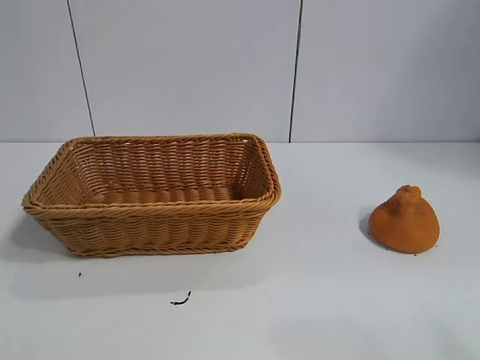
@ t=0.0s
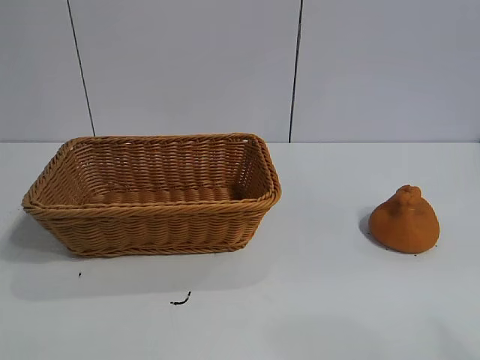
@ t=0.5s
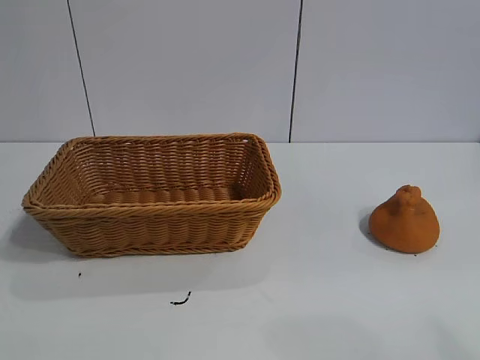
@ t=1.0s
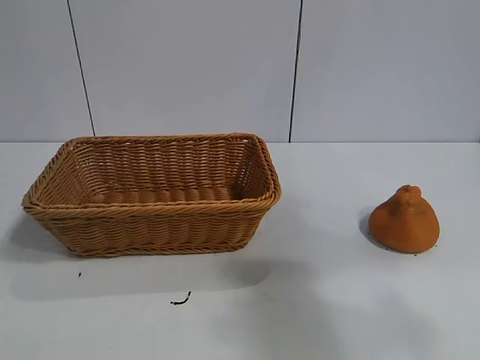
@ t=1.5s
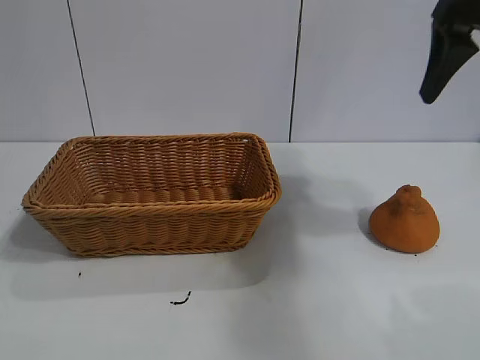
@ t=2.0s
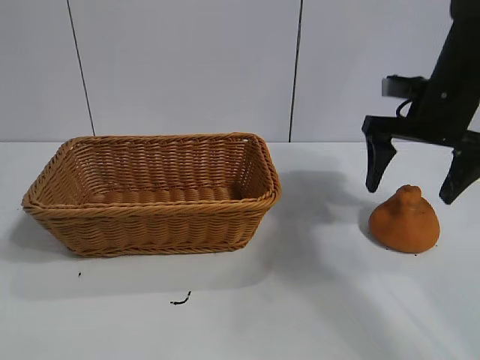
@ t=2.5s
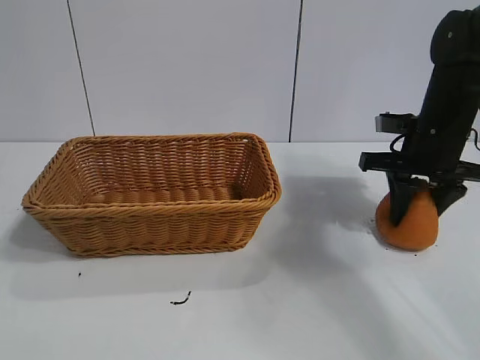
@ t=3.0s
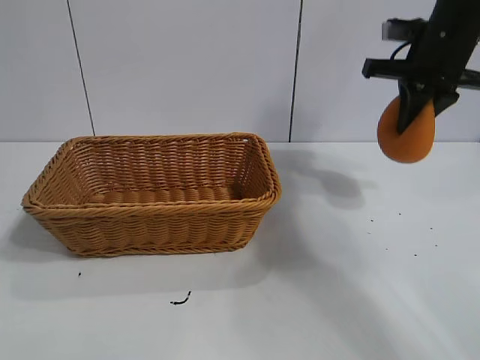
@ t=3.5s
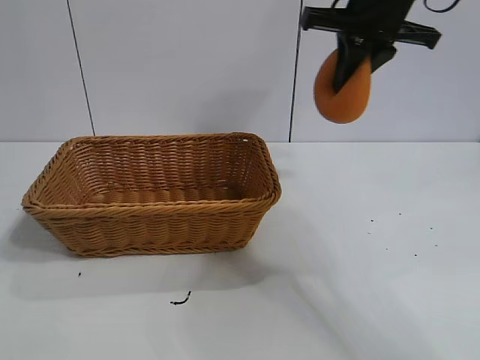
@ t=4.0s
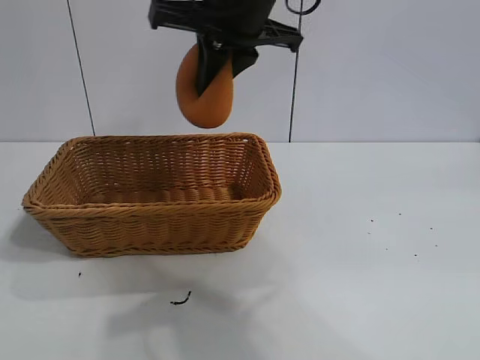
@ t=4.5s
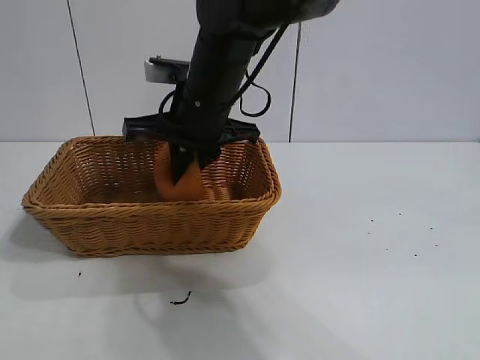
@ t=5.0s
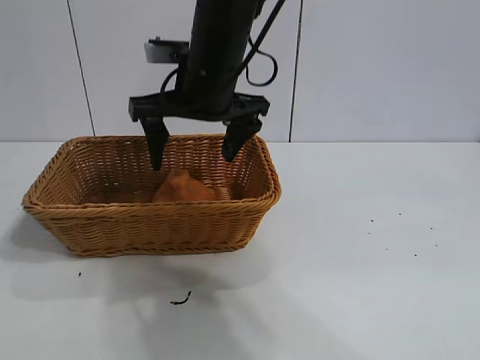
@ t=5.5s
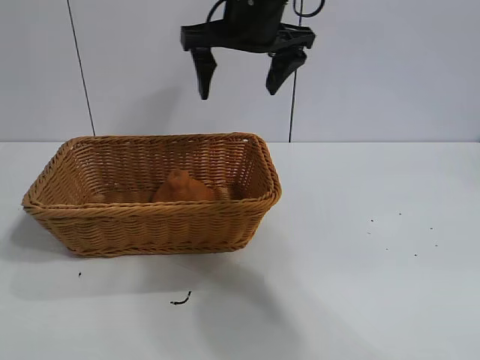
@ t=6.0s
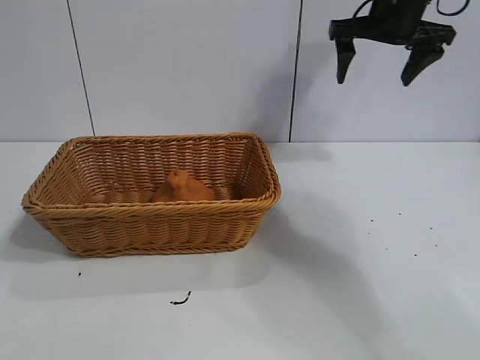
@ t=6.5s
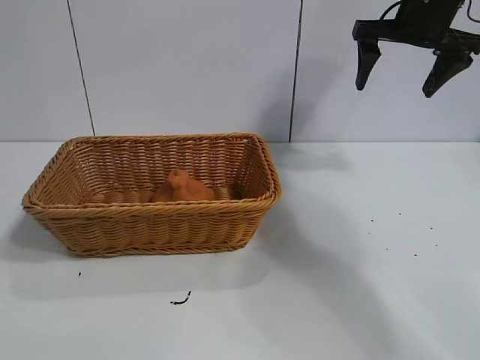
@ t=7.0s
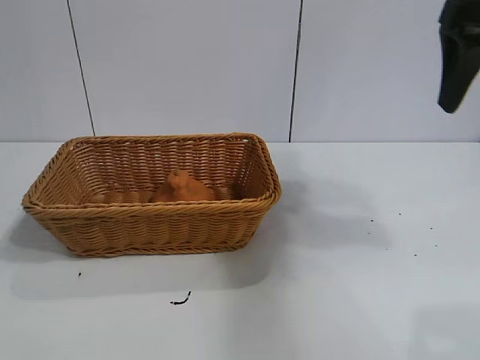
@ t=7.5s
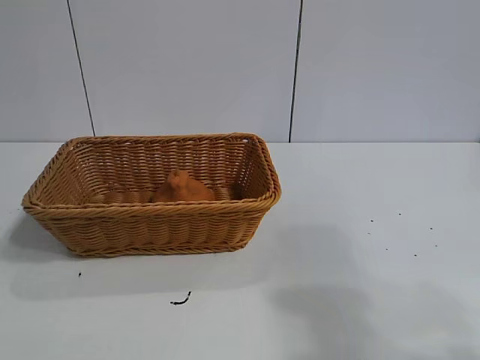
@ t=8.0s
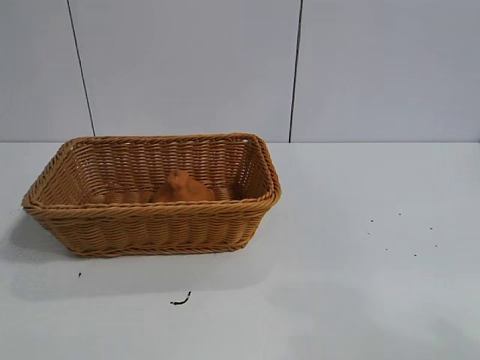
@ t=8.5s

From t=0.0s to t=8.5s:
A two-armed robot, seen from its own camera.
Task of the whole recording: pick up the orange and put it into the basket.
Step, from t=1.0s to t=3.0s: Grasp the orange with right gripper.
Step, from t=3.5s to t=5.0s: Place the orange in the basket with right gripper.

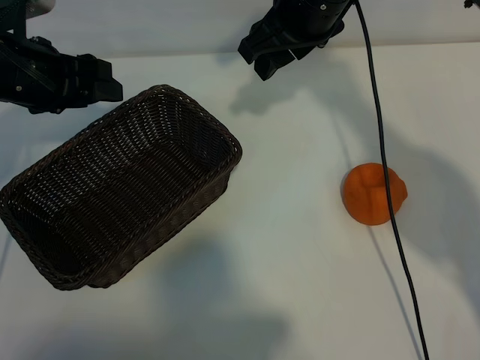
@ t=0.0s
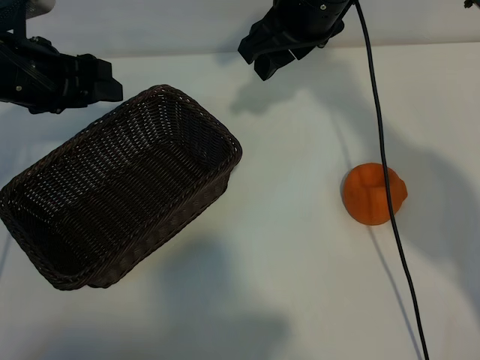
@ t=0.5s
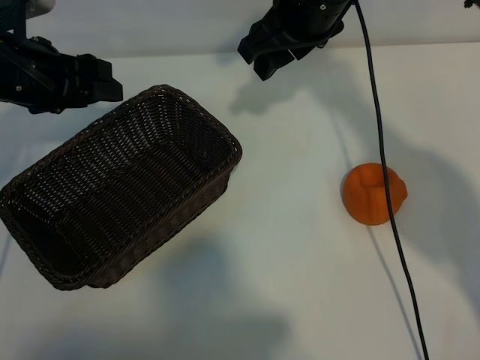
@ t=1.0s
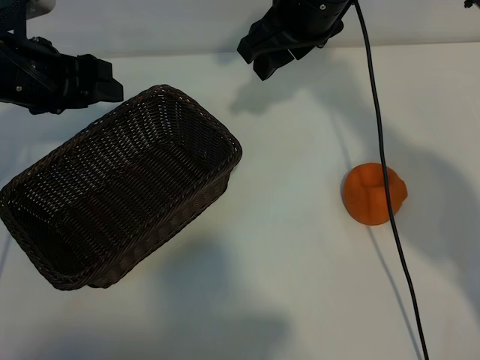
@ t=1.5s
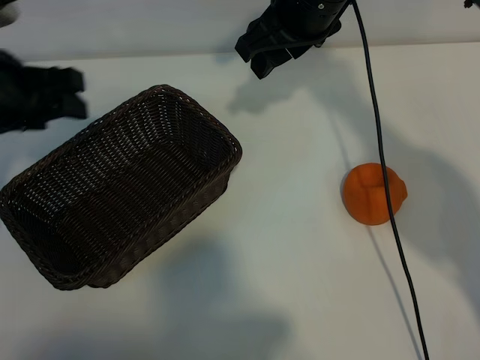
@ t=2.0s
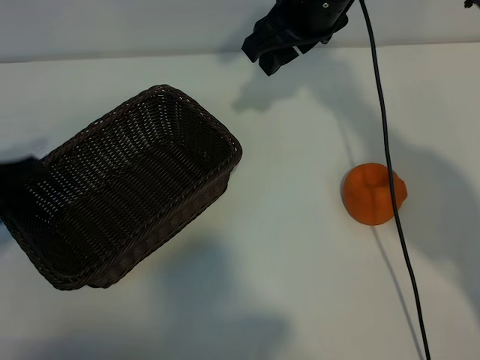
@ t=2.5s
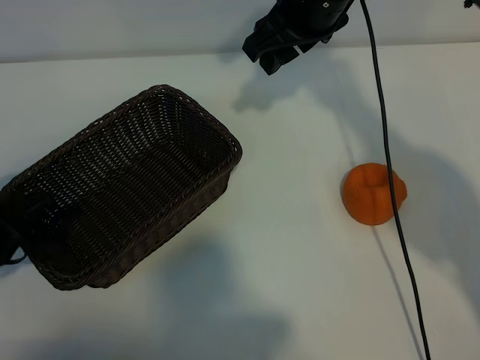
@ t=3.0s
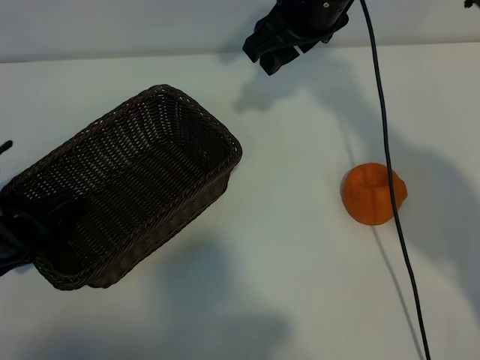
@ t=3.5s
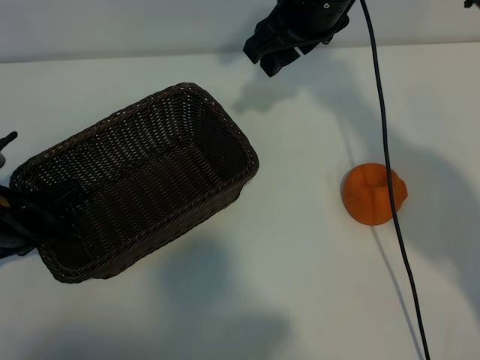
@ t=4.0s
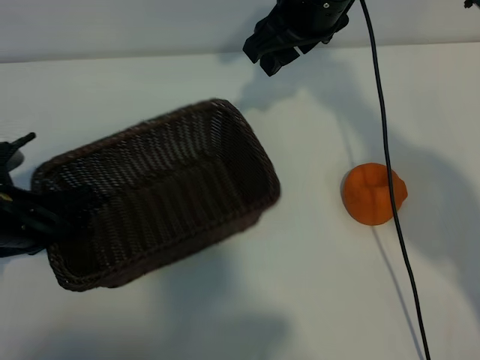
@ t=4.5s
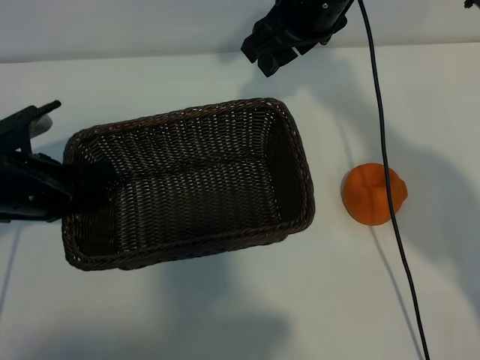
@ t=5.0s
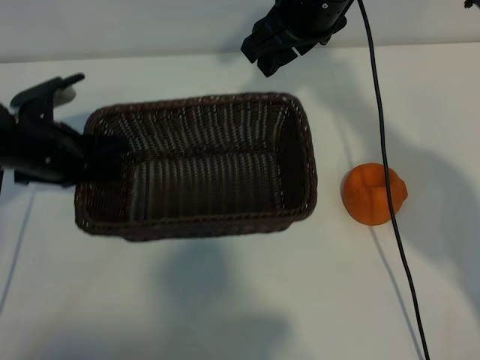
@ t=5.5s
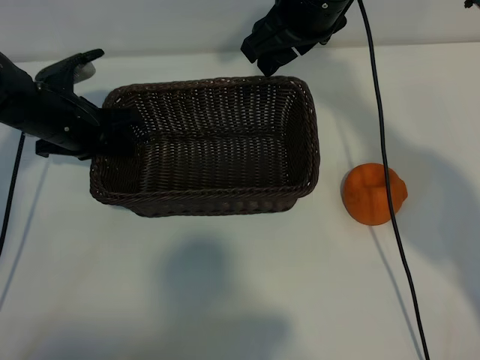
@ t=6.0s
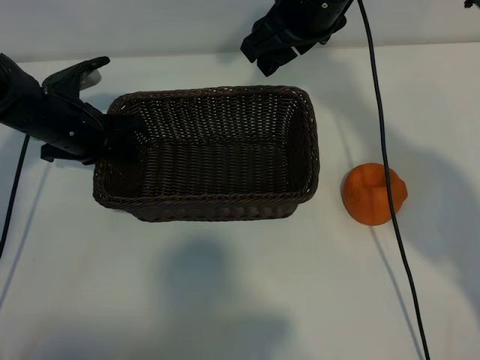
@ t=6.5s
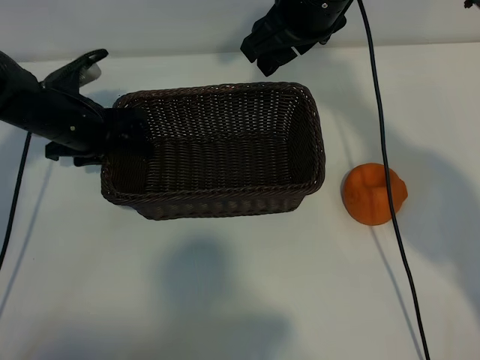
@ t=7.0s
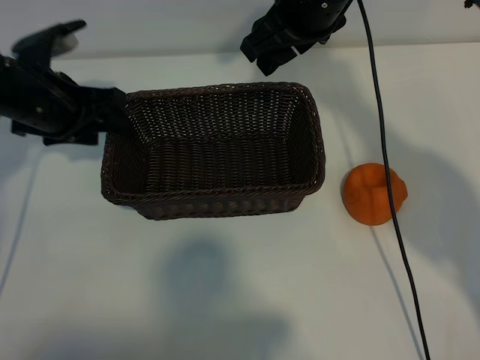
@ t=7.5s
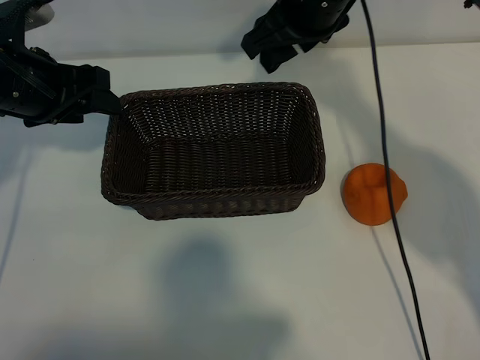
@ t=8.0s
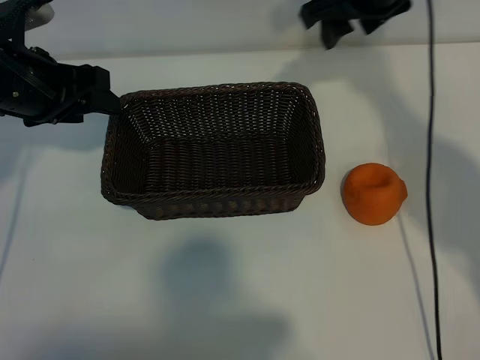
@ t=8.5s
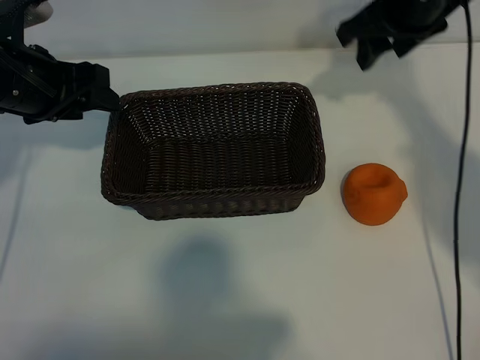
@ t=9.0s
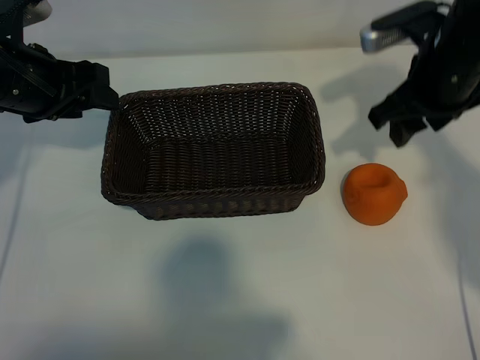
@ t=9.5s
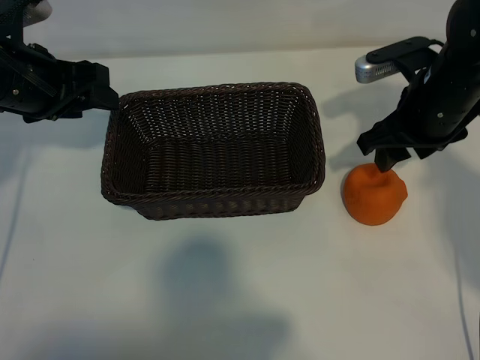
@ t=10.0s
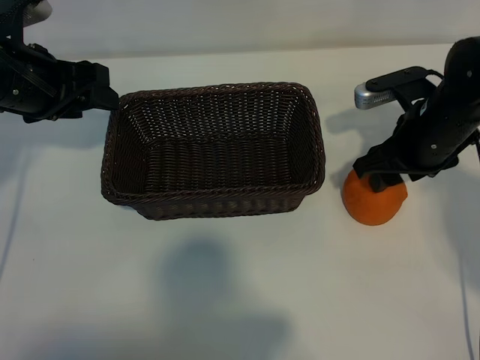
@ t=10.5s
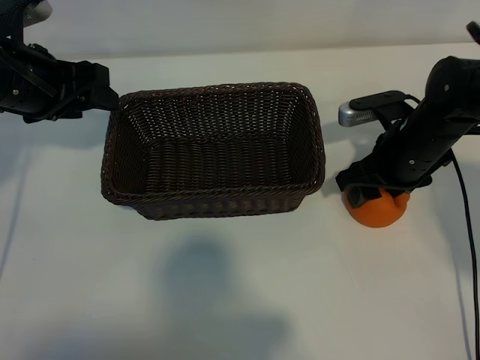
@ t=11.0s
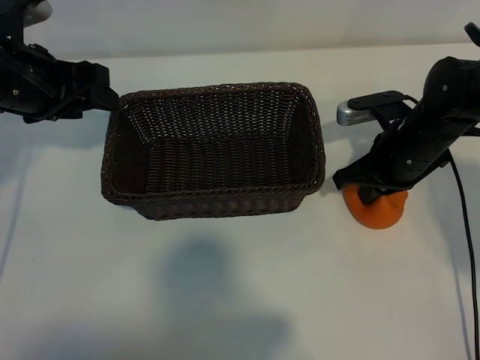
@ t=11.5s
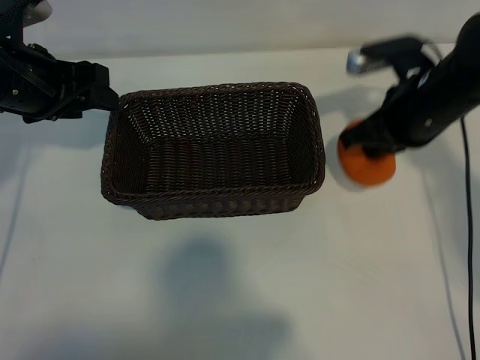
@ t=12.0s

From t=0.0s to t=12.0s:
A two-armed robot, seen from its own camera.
Task of the whole recording: pick up the orange and put it into the basket.
Step, from t=1.5s to t=3.5s: Grasp the basket with left gripper.
Step, from t=4.0s to t=6.5s: Place the basket in the center of view with left gripper.
Step, from t=7.0s to t=11.5s: Grasp the orange with right gripper.

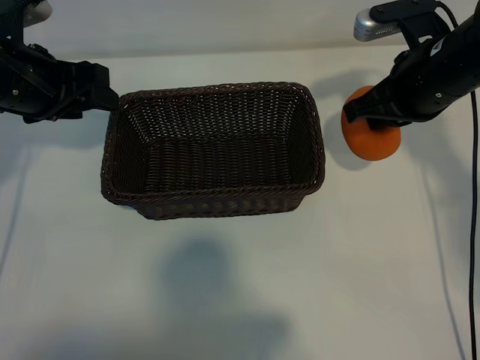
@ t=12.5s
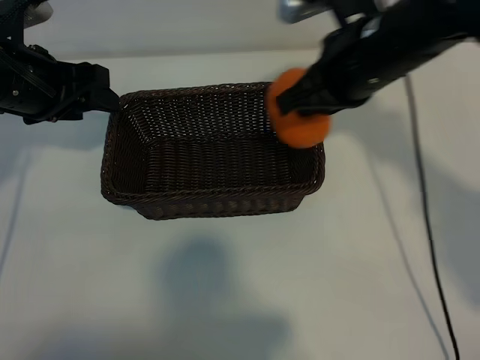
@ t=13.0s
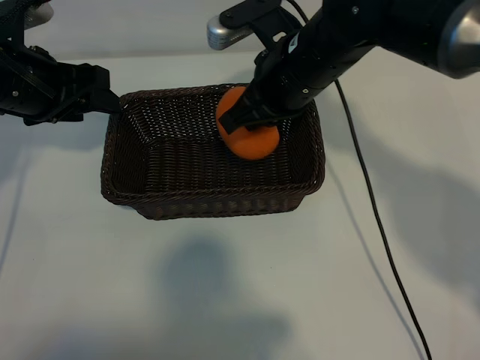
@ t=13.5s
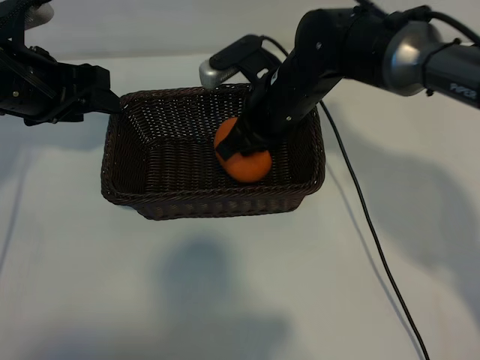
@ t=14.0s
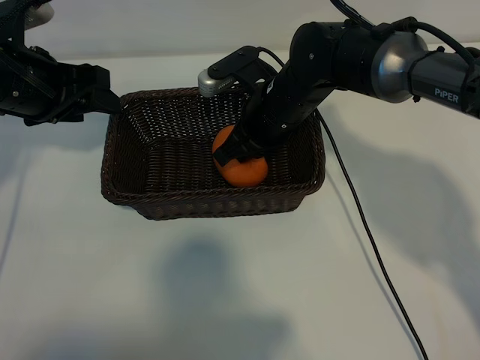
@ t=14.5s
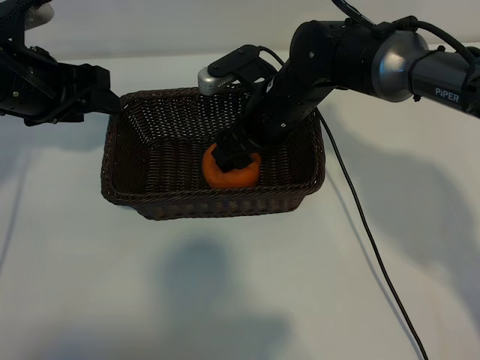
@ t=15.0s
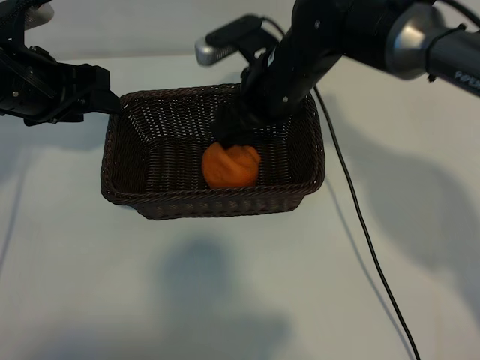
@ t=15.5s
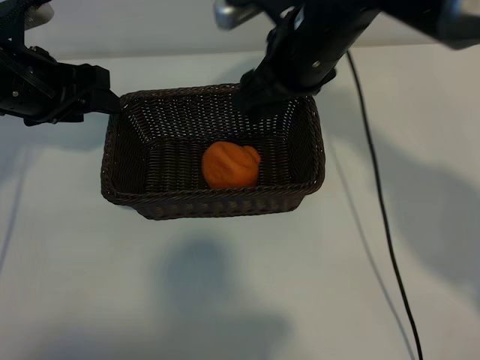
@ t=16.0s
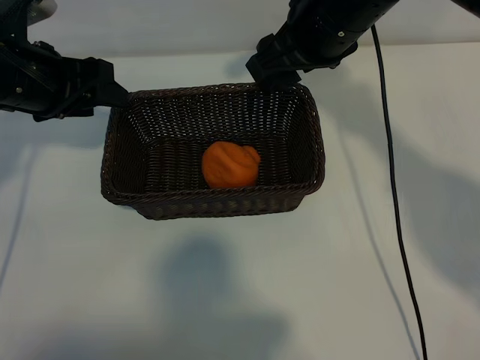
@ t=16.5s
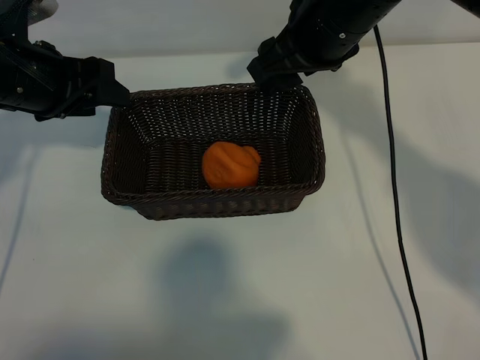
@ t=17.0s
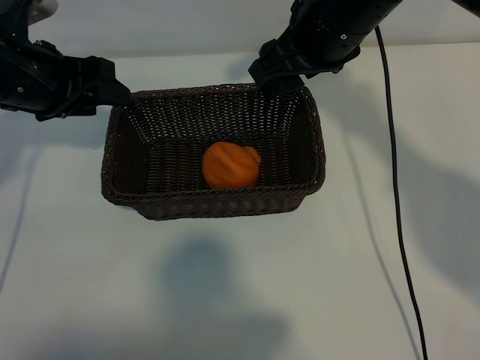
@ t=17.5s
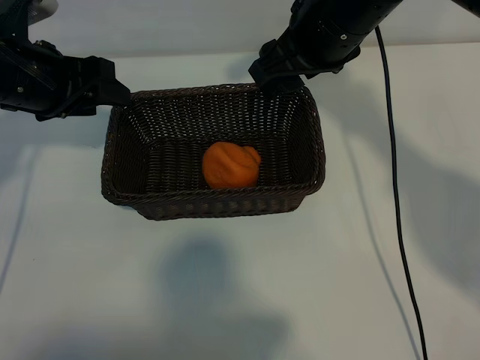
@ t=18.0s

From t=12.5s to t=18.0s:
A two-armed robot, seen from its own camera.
Task of the whole recording: pick up the orange and put it into the basket.
Step, from t=12.5s to t=15.0s: Place the orange in the basket with right gripper.
